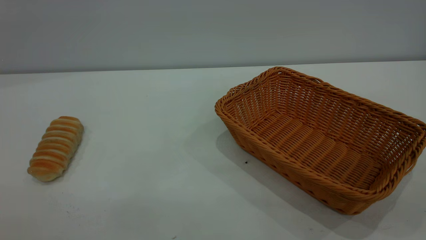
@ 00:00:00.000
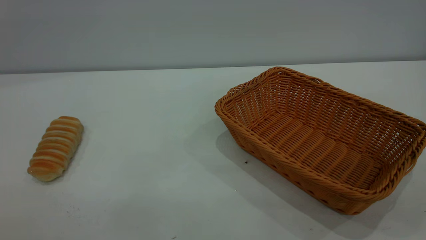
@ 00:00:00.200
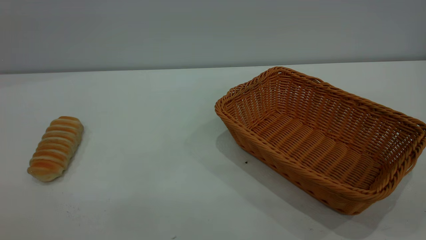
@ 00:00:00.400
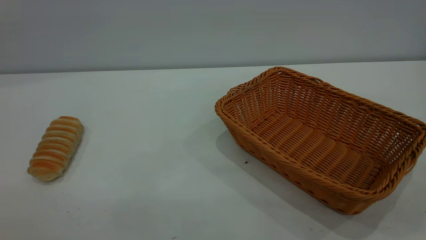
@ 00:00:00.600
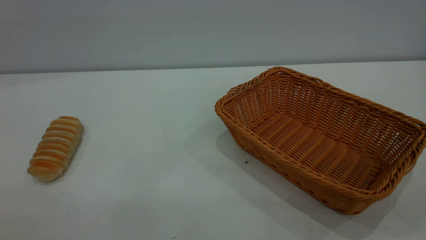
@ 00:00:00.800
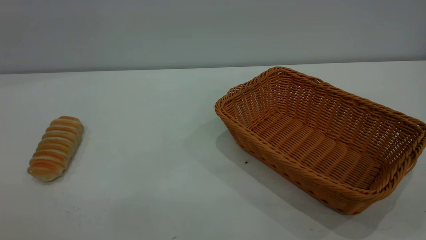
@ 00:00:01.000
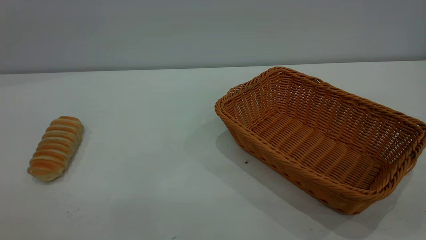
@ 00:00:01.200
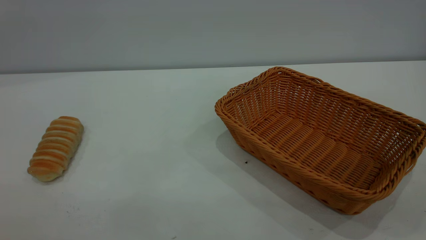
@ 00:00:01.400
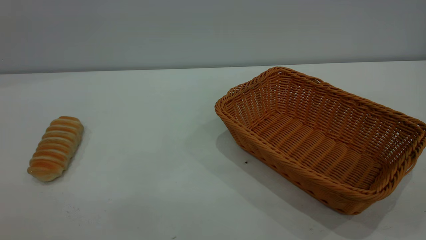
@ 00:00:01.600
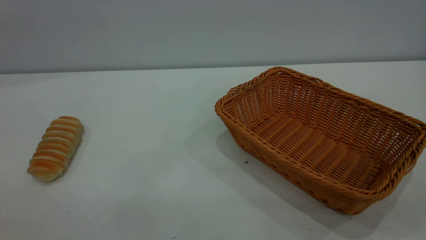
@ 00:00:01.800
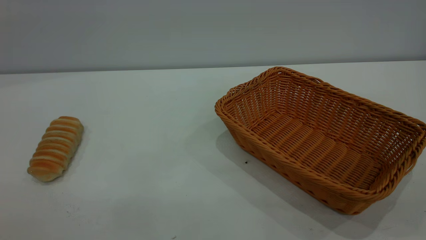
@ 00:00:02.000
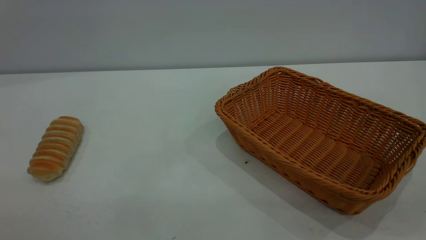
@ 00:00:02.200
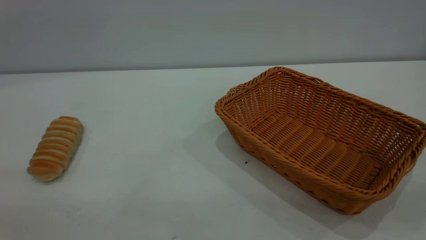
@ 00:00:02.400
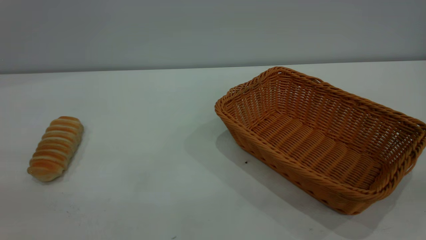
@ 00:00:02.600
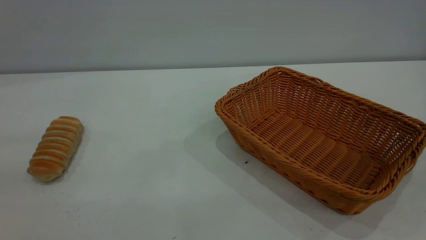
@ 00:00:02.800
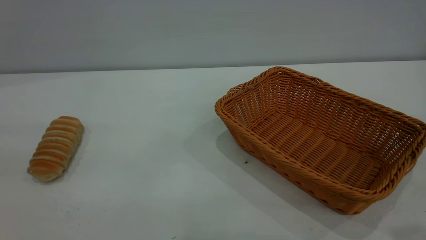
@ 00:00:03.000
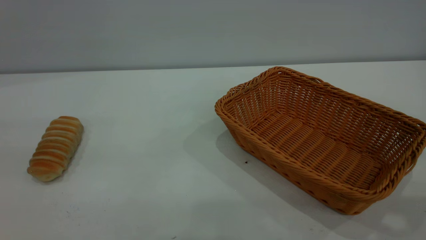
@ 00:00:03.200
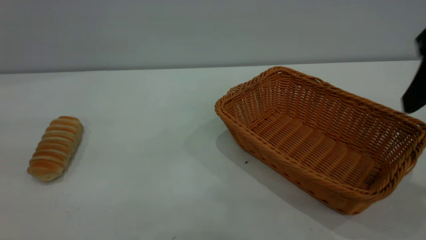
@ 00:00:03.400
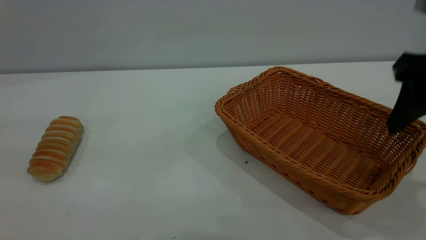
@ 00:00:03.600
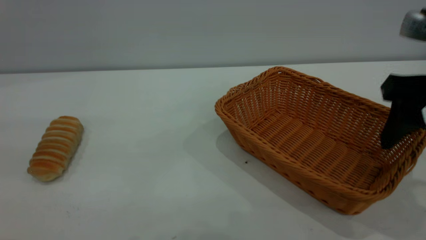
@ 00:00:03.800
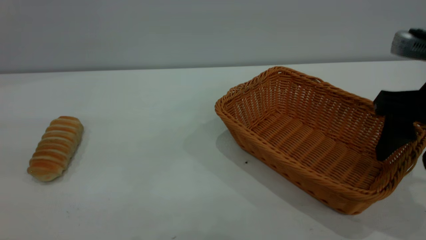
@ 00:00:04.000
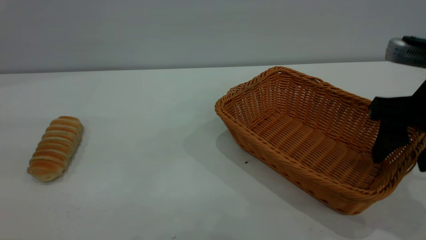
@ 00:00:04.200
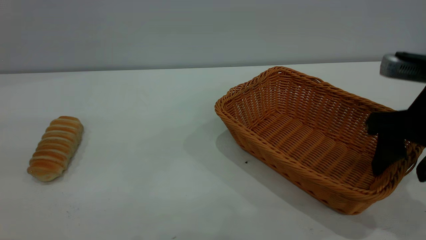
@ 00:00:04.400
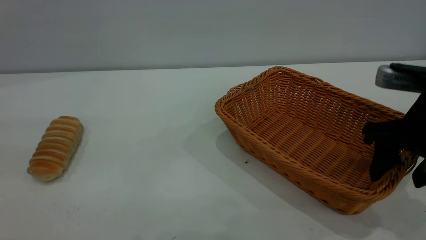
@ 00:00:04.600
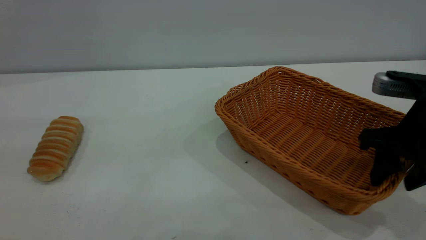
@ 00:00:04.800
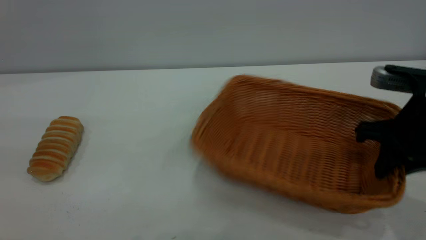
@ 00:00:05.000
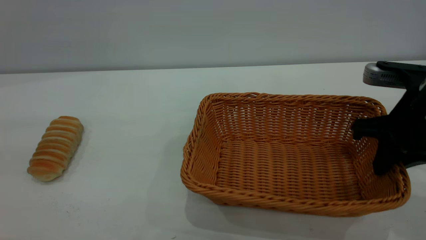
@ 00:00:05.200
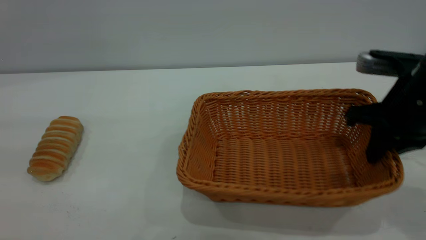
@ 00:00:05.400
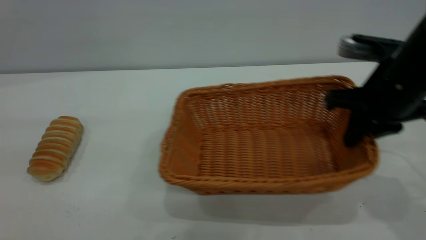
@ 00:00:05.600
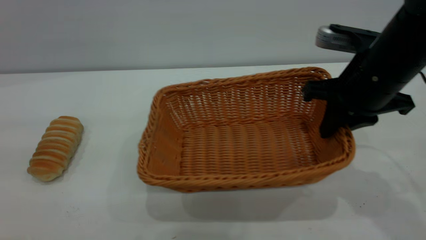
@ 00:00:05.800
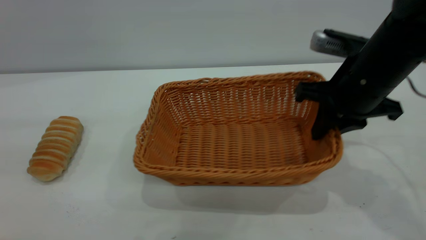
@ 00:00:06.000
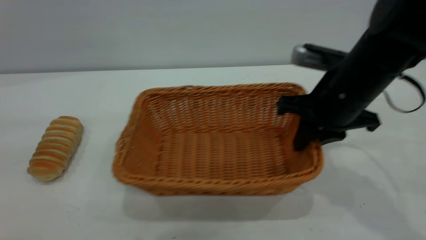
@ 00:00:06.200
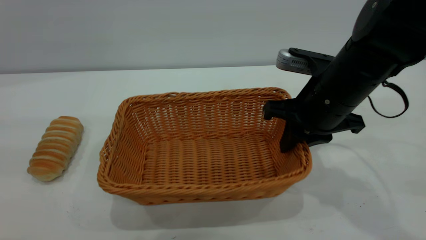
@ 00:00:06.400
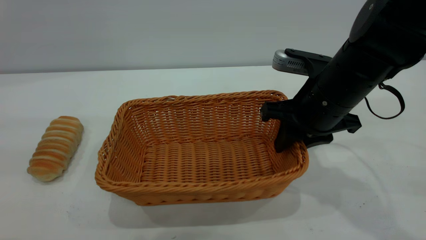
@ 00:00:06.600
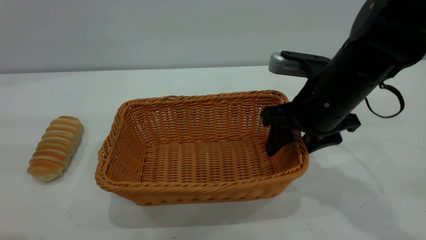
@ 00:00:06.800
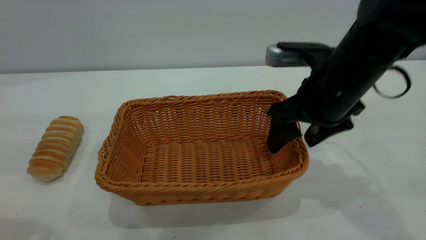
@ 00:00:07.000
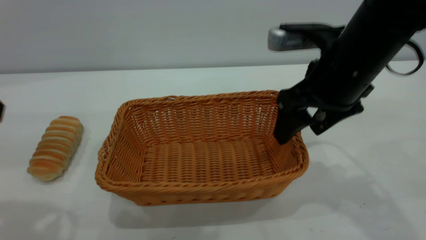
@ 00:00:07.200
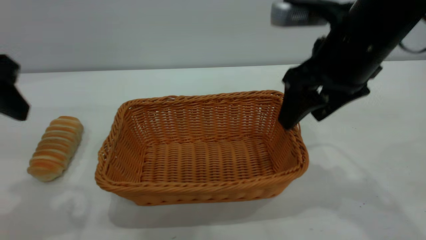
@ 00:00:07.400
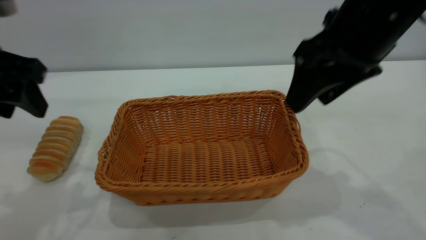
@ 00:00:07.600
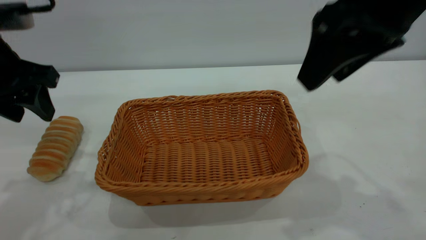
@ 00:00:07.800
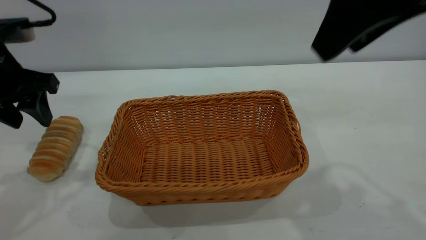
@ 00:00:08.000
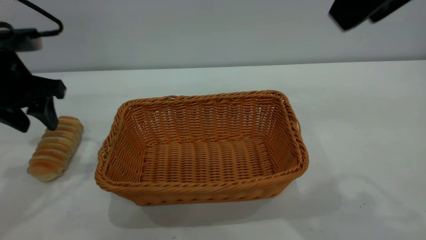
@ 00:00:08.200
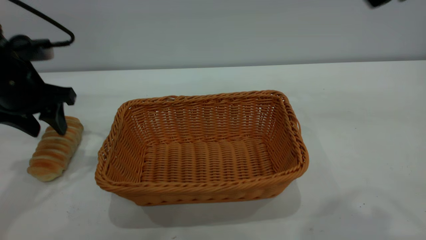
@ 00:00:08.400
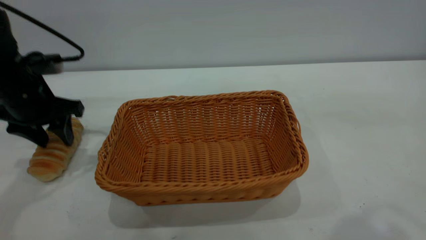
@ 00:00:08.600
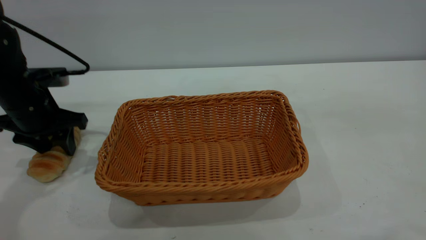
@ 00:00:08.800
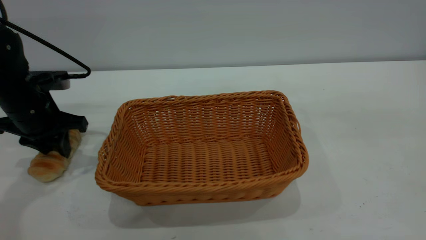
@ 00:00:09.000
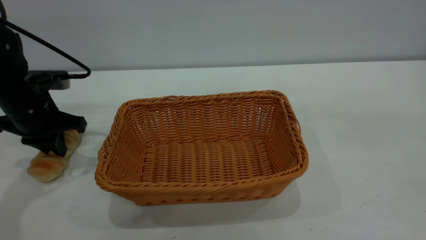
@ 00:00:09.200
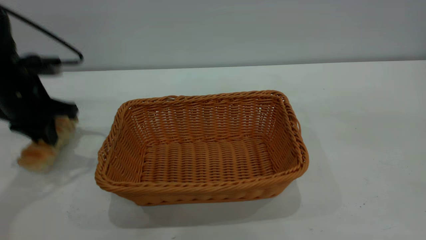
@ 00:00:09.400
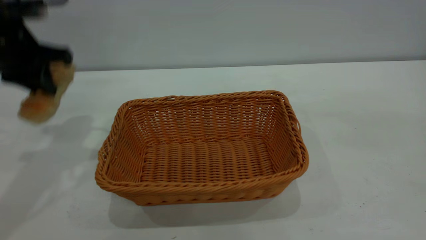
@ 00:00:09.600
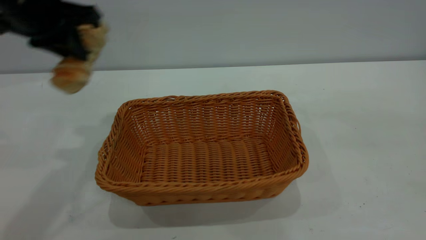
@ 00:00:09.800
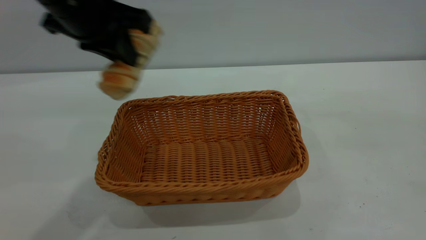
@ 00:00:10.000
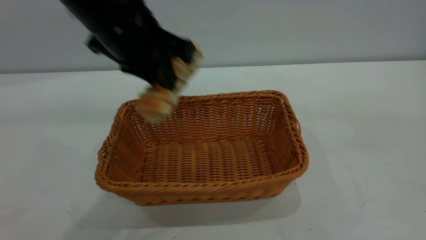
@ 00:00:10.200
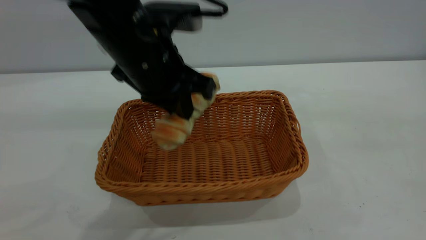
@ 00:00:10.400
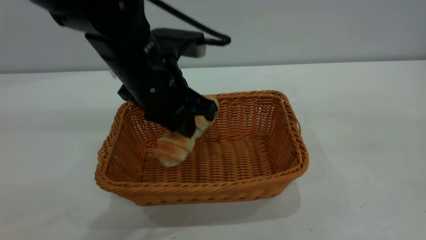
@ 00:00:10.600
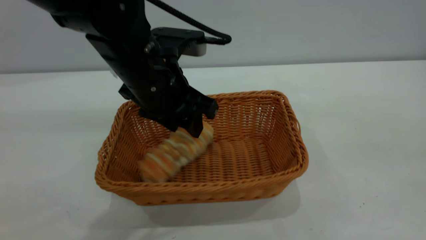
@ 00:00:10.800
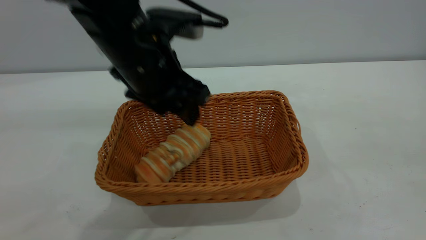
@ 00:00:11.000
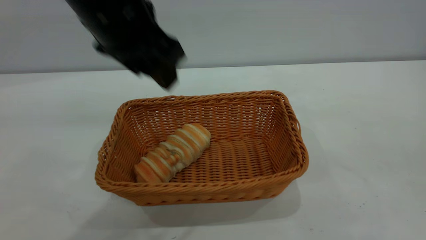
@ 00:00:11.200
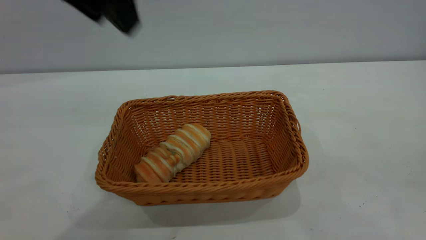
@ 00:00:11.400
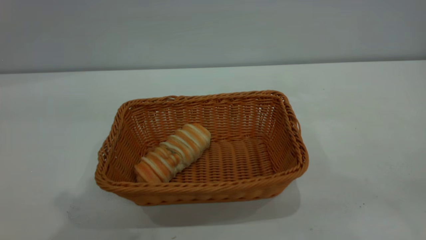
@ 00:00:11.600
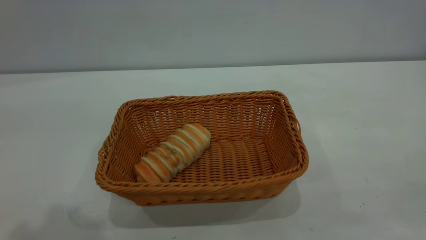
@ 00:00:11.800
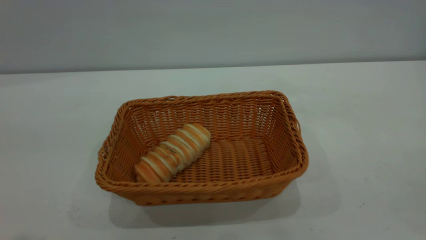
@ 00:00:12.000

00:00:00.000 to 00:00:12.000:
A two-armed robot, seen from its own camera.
Task of the whole recording: One hand grasps the yellow basket and places it in the middle of the table, while the other hand picks up the long bread and puts it into the yellow basket.
Step, 00:00:00.000 to 00:00:07.200: Move the basket to the center of view.
Step, 00:00:09.600 to 00:00:11.000: place the bread into the basket.
00:00:00.000 to 00:00:01.600: Neither gripper changes place.
00:00:03.000 to 00:00:04.400: The right gripper moves downward and forward, approximately 20 cm.
00:00:04.400 to 00:00:06.000: The right gripper goes some 10 cm forward and to the left, and closes.
00:00:06.000 to 00:00:07.600: The right gripper is displaced upward by about 10 cm, and opens its fingers; the left gripper heads forward and downward, covering roughly 15 cm.
00:00:07.600 to 00:00:09.000: The right gripper heads upward and backward, covering some 25 cm. The left gripper travels downward and forward by some 15 cm, and closes.
00:00:09.000 to 00:00:10.400: The left gripper travels to the right and upward by roughly 25 cm.
00:00:10.400 to 00:00:12.000: The left gripper moves upward, backward and to the left, roughly 30 cm, and opens up. The right gripper heads downward, backward and to the right, covering approximately 15 cm.

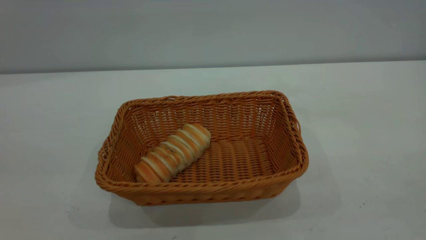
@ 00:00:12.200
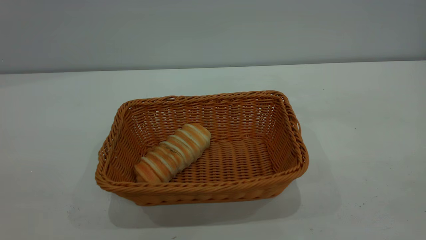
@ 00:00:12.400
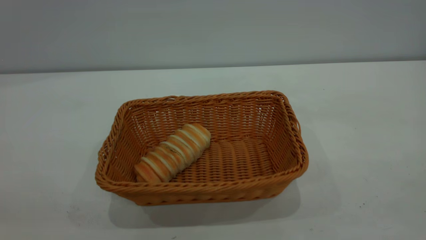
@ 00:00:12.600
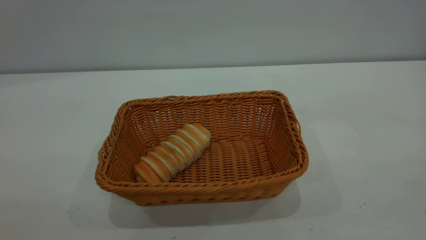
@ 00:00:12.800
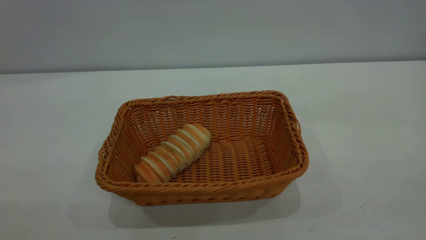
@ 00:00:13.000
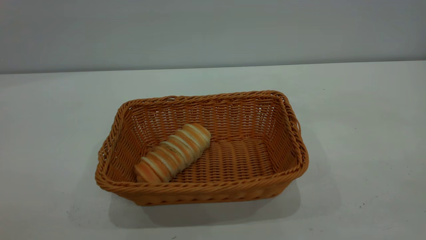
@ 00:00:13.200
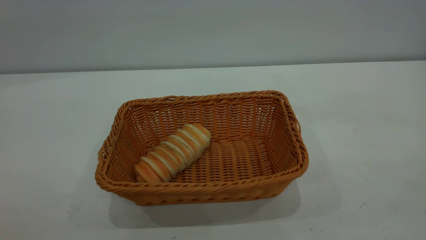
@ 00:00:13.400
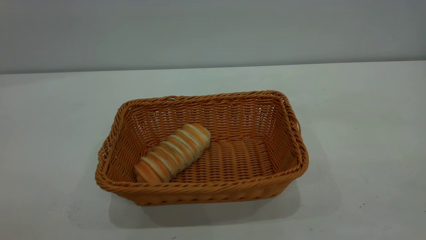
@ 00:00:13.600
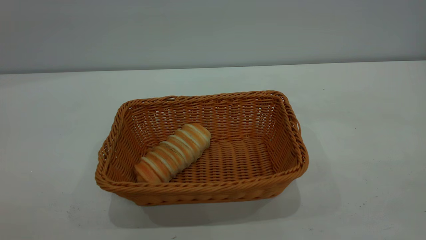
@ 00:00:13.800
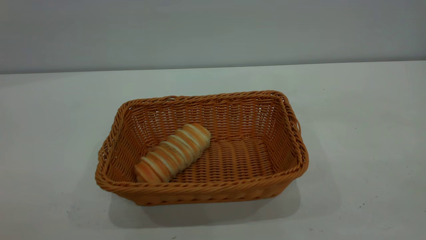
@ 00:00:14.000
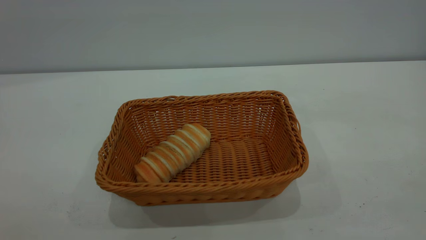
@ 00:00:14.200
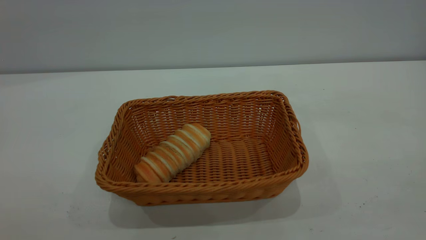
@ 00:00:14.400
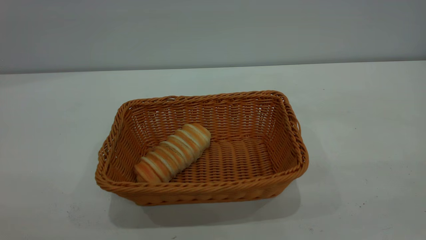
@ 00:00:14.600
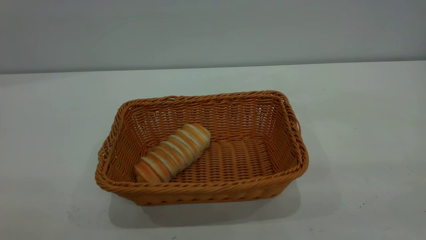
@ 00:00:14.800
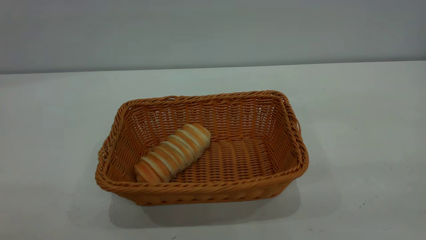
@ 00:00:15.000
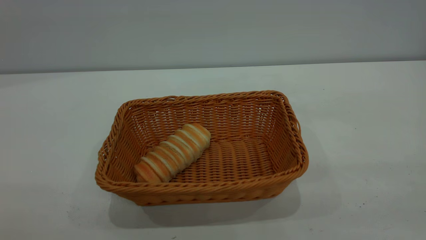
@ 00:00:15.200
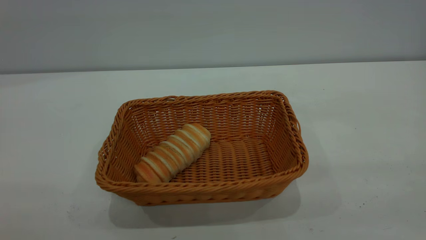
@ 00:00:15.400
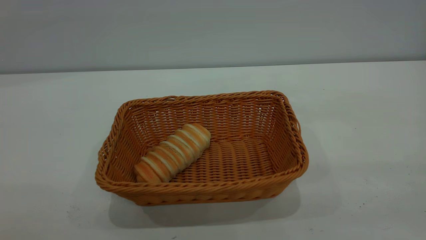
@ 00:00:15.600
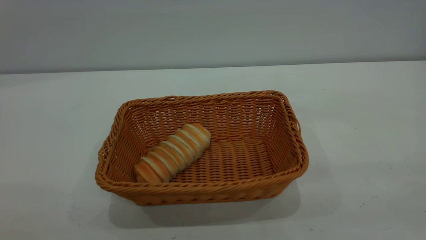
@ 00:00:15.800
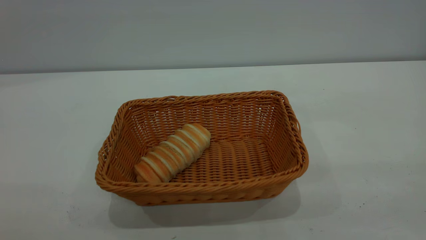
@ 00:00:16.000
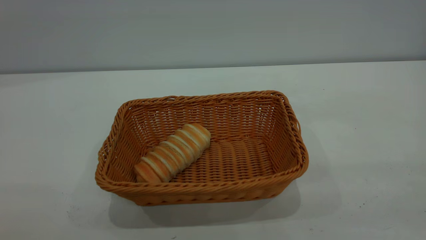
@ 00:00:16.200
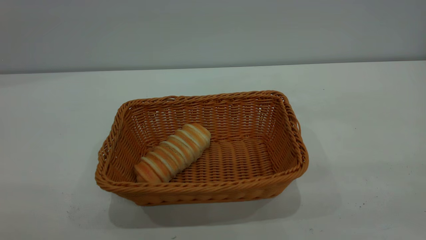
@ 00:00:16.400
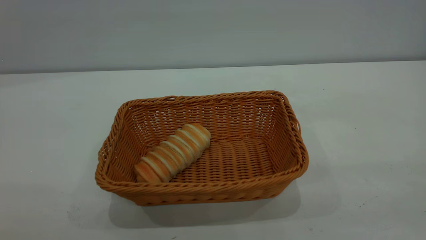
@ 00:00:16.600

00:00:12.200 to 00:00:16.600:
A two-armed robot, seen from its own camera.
Task of the whole recording: One hand grasps the yellow basket and places it in the middle of the table, while the other hand picks up the long bread and puts it into the yellow basket.
00:00:15.200 to 00:00:16.600: Both grippers stay about where they are.
